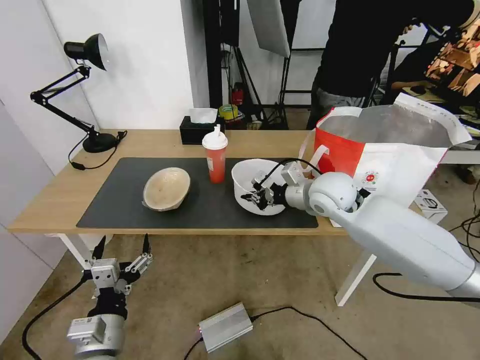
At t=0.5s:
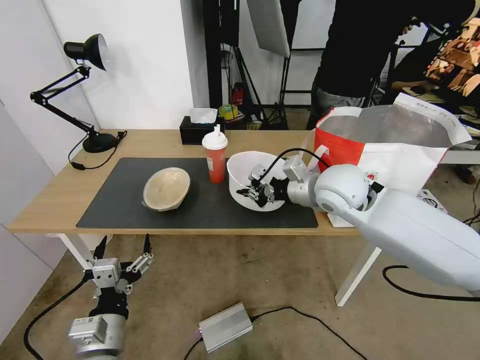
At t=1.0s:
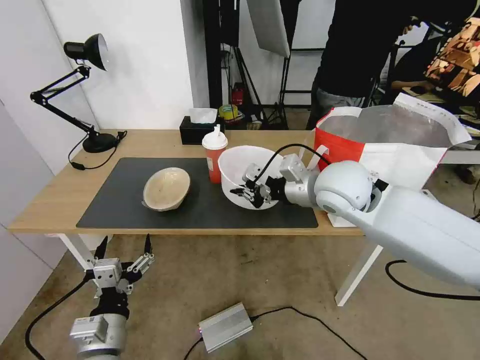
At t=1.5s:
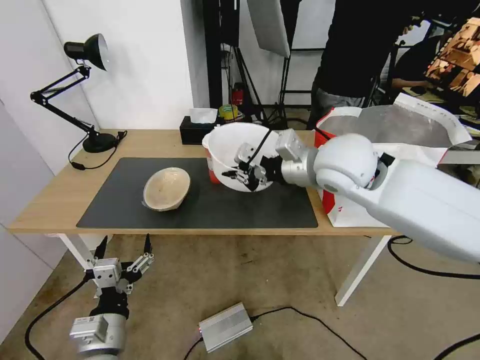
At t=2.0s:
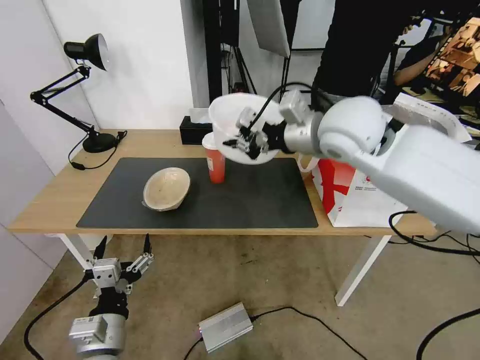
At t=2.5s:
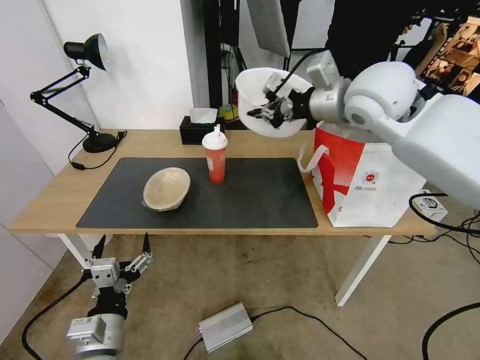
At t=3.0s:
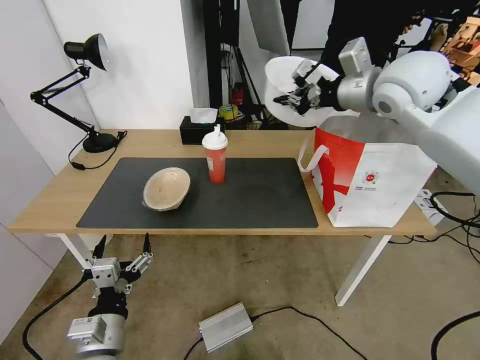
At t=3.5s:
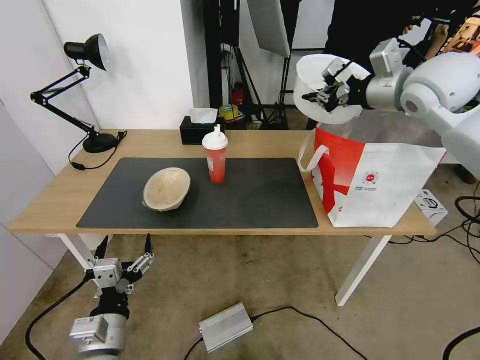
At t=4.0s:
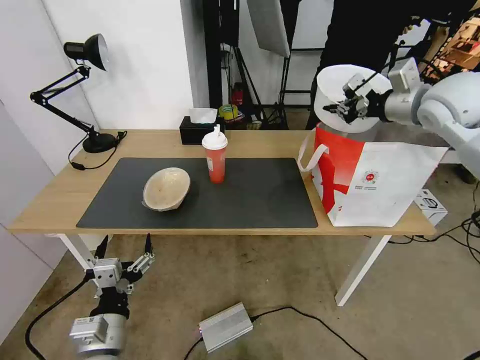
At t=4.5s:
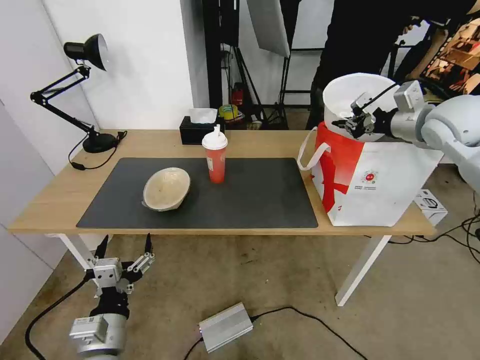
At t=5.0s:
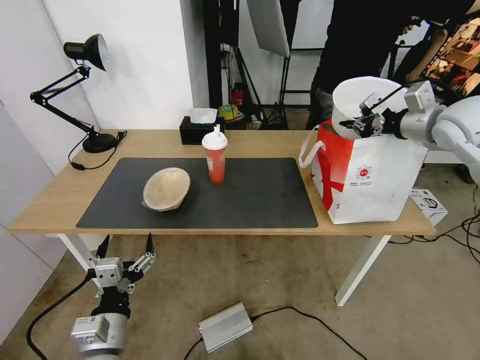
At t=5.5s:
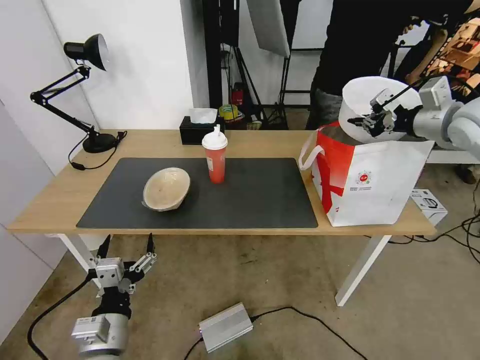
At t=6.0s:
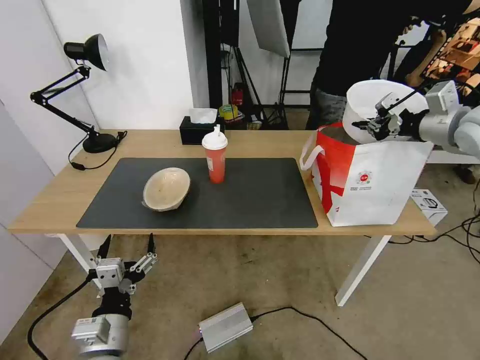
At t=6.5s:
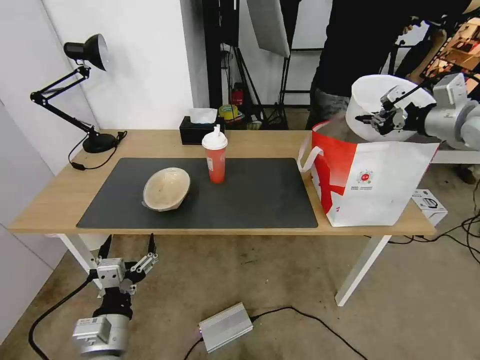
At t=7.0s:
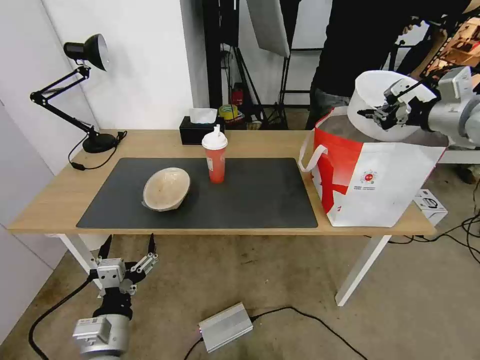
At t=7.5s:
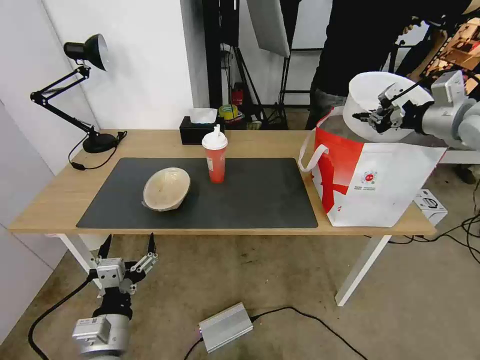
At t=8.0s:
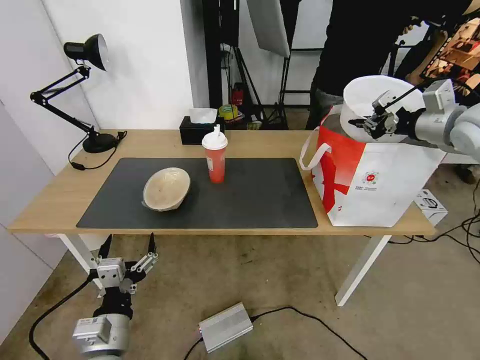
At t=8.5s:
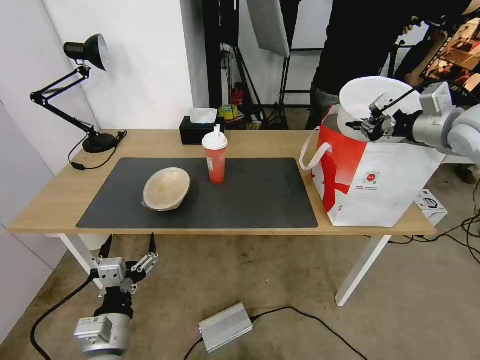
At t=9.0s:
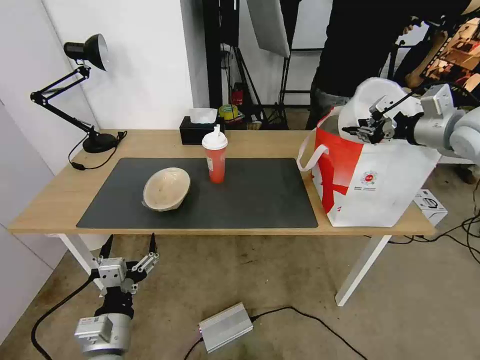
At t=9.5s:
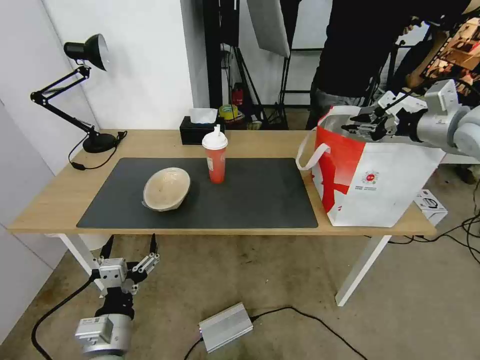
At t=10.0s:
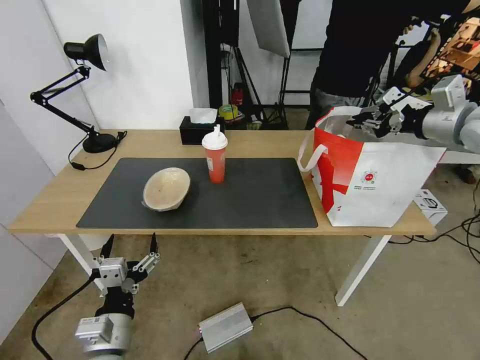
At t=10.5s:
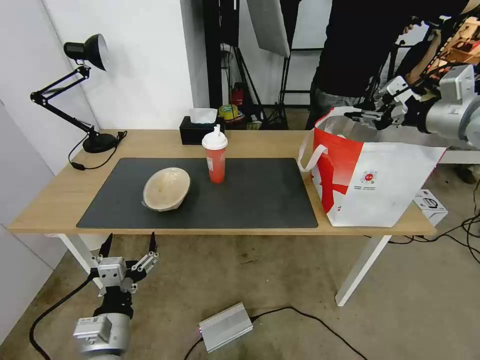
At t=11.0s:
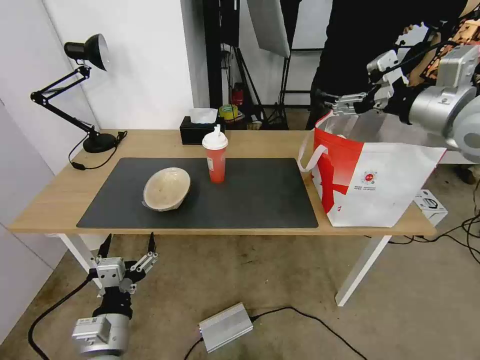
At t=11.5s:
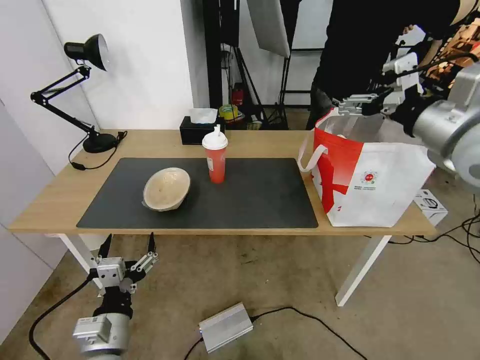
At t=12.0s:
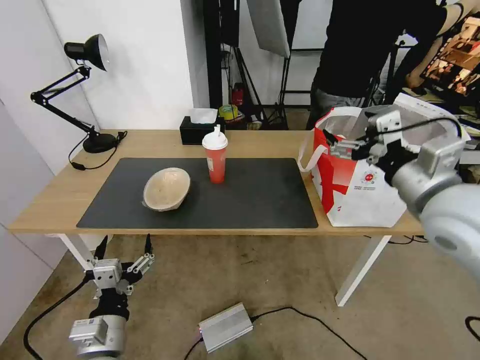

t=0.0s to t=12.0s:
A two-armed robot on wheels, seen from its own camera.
Task of the whole recording: Pick up the trash from the table and place it into the takeout bag.
t=0.0s to t=2.0s: The right gripper moves upward, roughly 20 cm.
t=2.0s to t=4.0s: The right gripper shifts some 20 cm to the right.
t=4.0s to t=6.0s: The right gripper is displaced to the right by some 5 cm.
t=6.0s to t=10.0s: The grippers make only small movements.
t=10.0s to t=12.0s: The right gripper moves backward, to the left and downward, roughly 20 cm, and opens its fingers.

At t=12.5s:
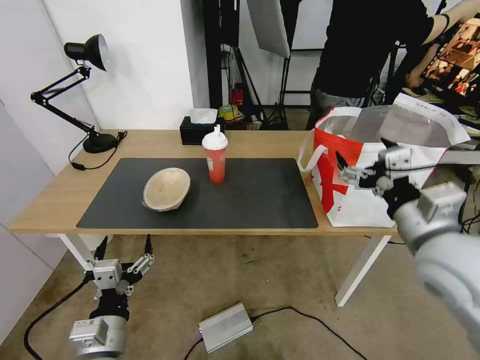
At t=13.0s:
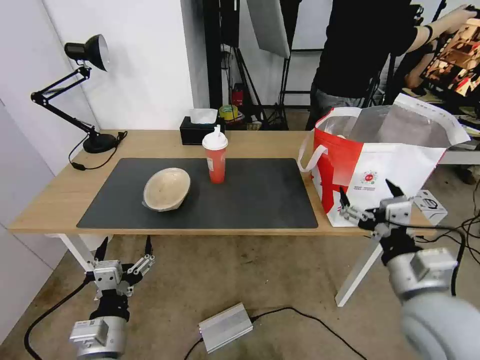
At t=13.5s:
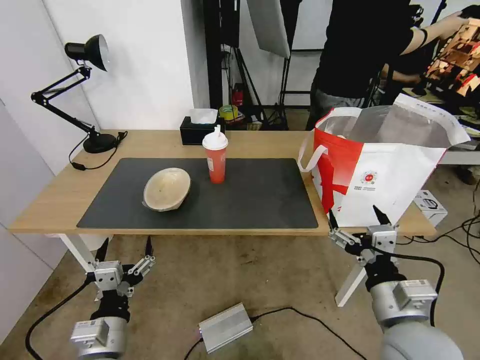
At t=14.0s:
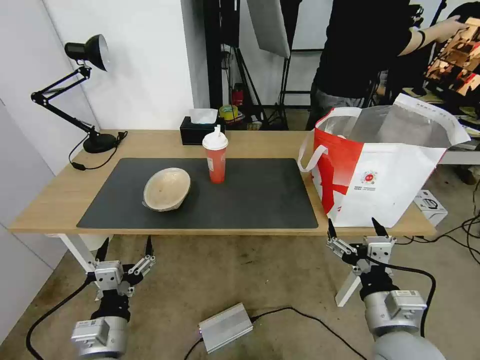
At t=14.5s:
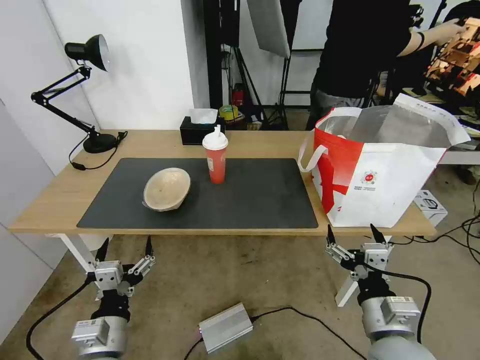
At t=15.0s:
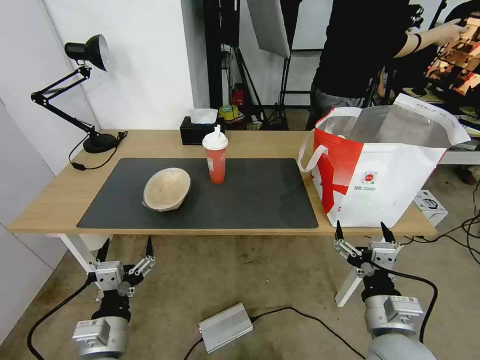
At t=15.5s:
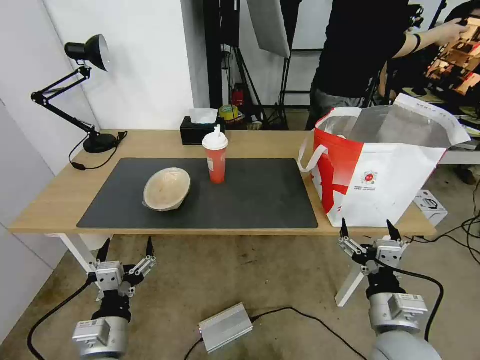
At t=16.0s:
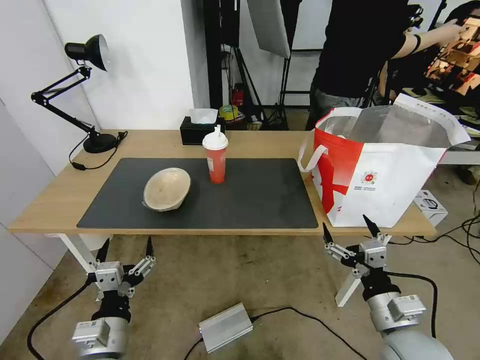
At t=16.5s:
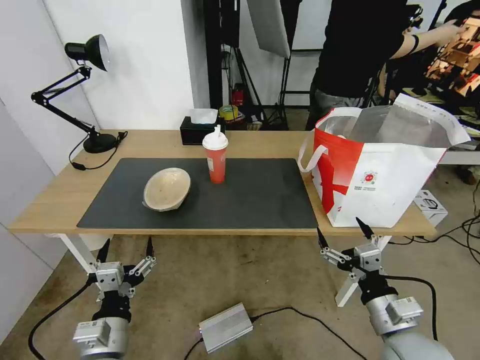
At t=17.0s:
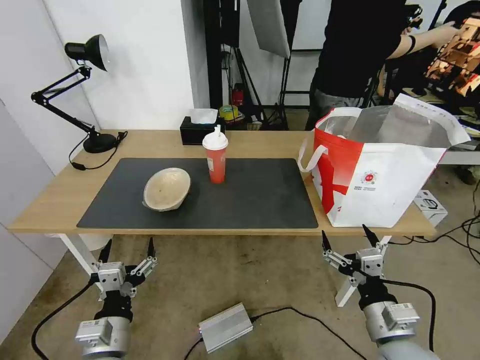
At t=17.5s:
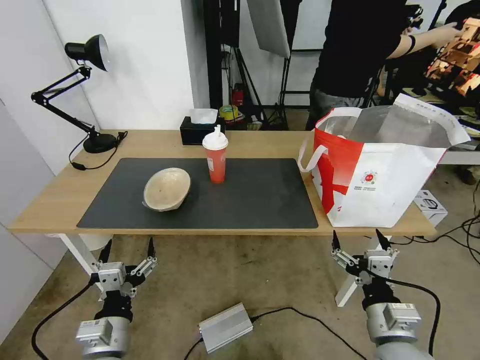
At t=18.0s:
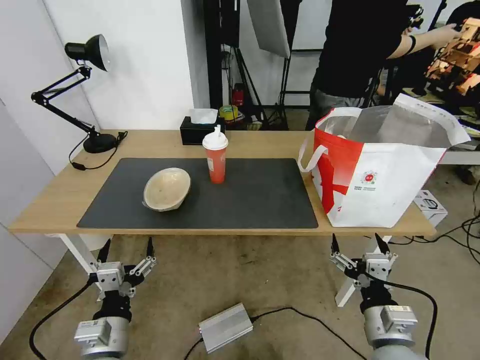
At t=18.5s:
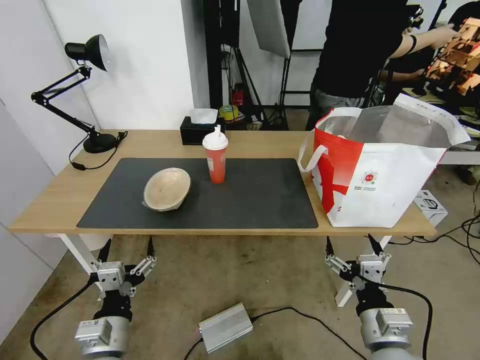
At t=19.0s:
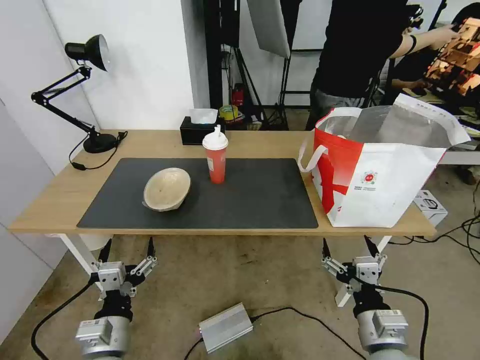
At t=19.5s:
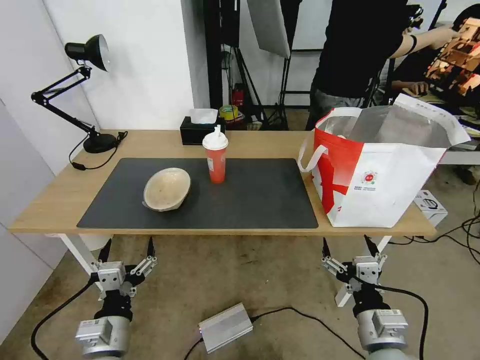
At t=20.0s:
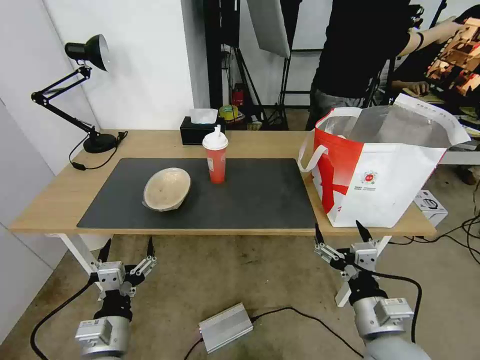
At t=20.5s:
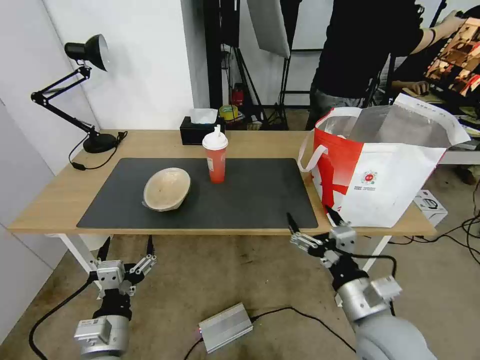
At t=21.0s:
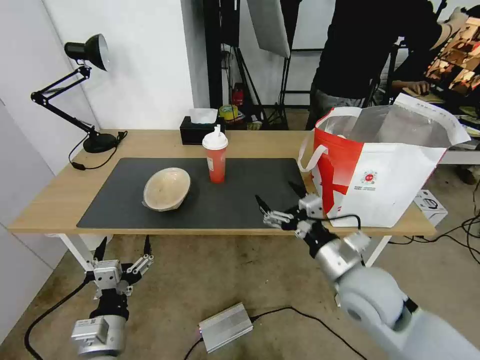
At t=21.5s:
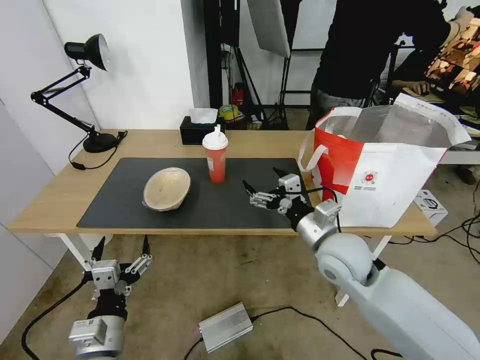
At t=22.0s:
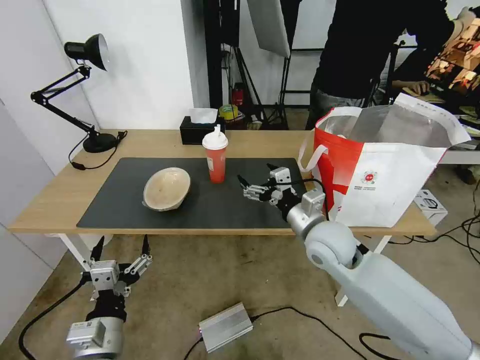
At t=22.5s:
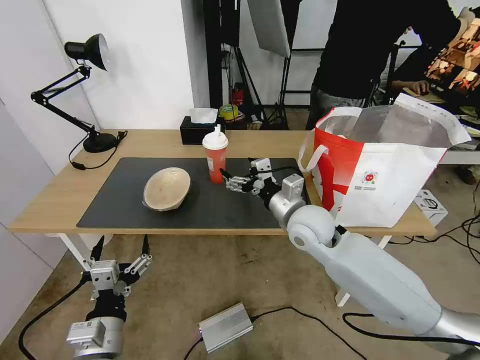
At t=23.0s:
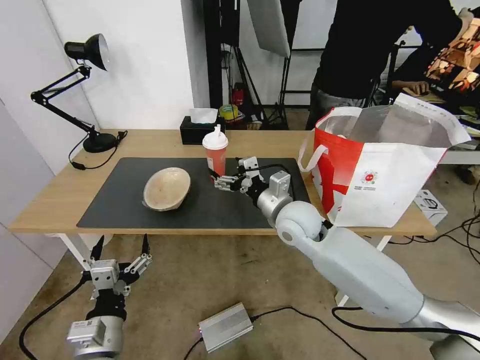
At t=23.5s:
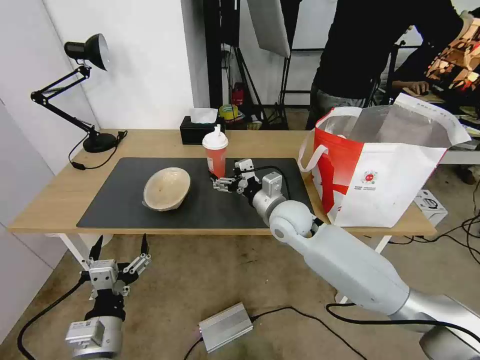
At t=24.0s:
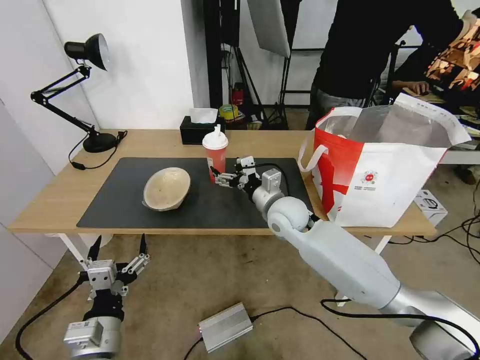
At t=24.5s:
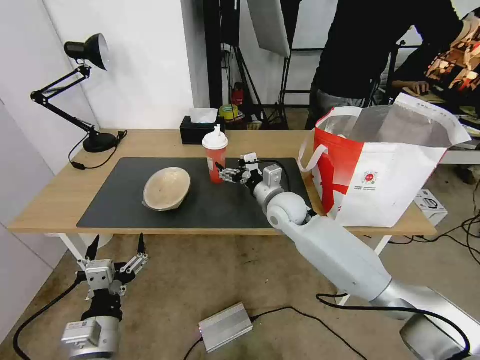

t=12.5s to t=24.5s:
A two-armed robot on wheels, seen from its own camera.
Task of the whole recording: Pick up the trash from the table and place it into the takeout bag.
t=12.5s to t=14.5s: The right gripper heads downward and backward, covering some 20 cm.
t=14.5s to t=18.5s: The grippers make only small movements.
t=18.5s to t=20.5s: The right gripper moves roughly 5 cm.
t=20.5s to t=22.5s: The right gripper is displaced forward and to the left by about 25 cm.
t=22.5s to t=24.5s: The right gripper heads forward, covering roughly 10 cm.

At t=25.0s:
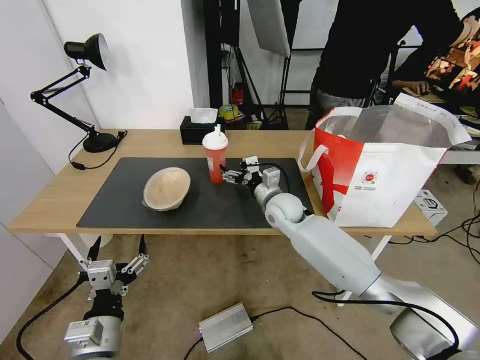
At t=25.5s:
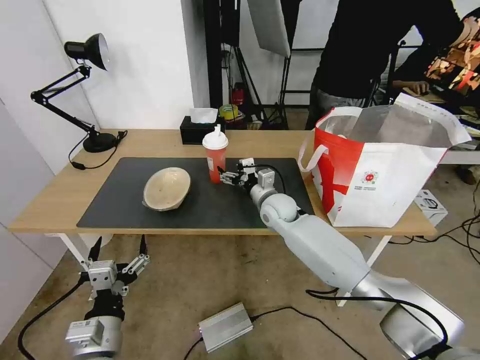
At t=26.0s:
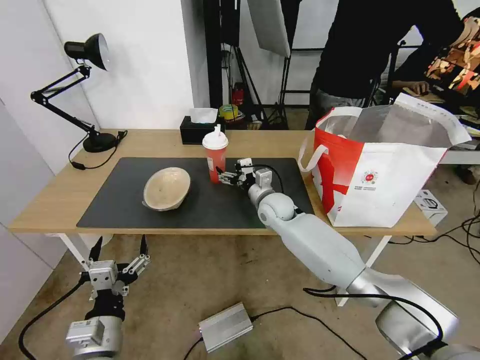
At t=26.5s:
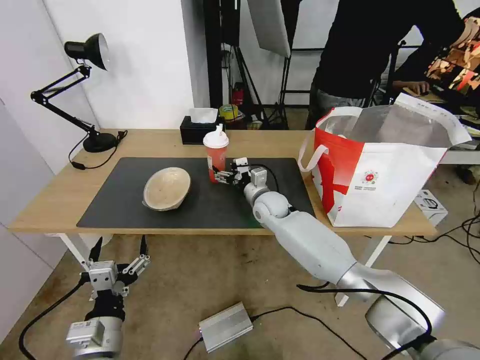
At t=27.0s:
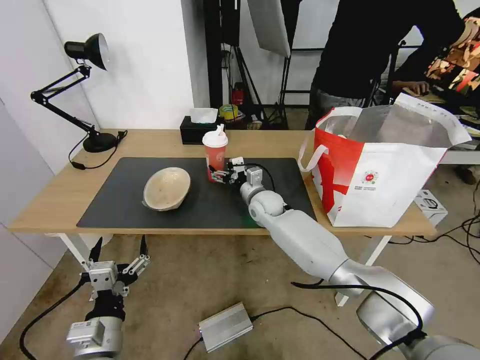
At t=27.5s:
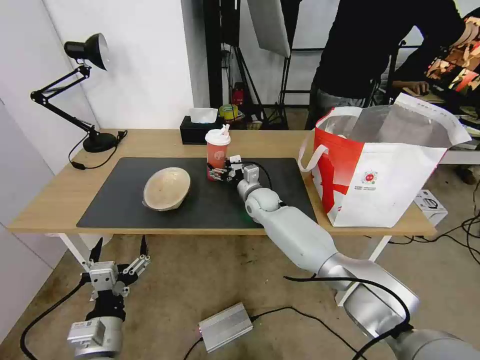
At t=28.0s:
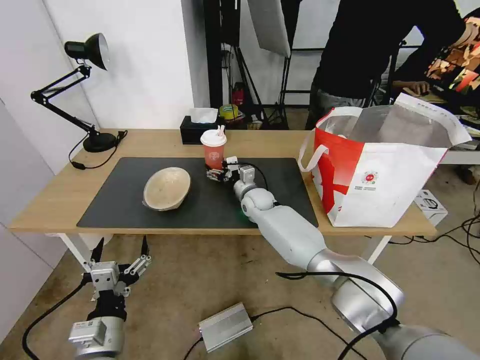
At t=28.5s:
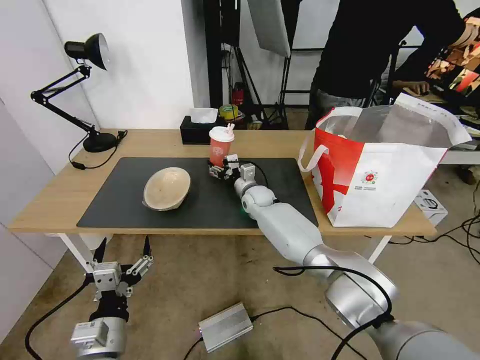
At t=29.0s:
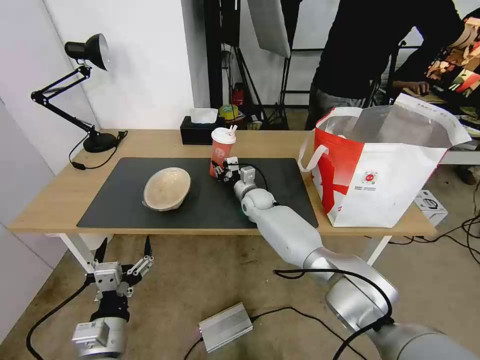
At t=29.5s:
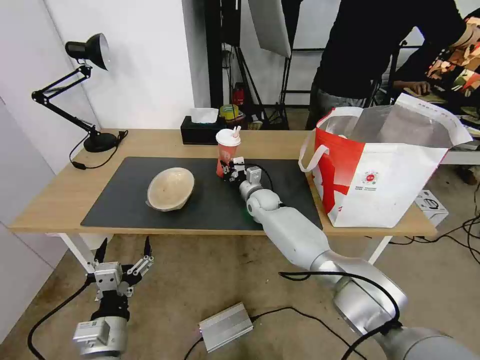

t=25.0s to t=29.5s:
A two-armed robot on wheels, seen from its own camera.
Task of the whole recording: Pick up the trash from the table and place it into the takeout bag.
t=25.0s to t=27.0s: The right gripper changes place by about 5 cm.
t=27.0s to t=29.5s: The right gripper closes.
